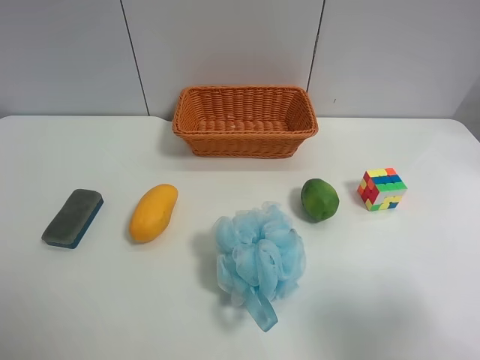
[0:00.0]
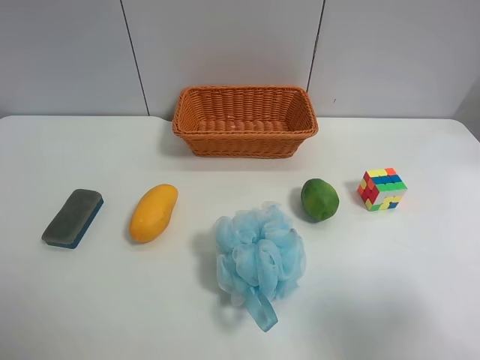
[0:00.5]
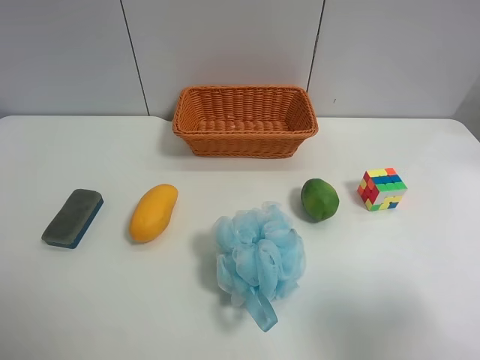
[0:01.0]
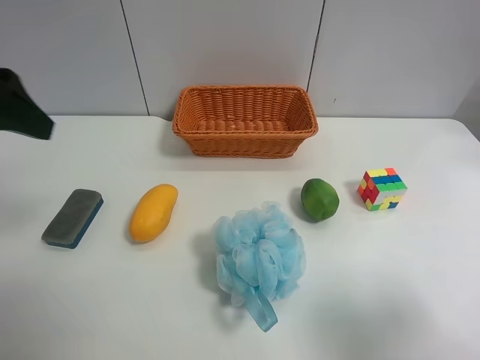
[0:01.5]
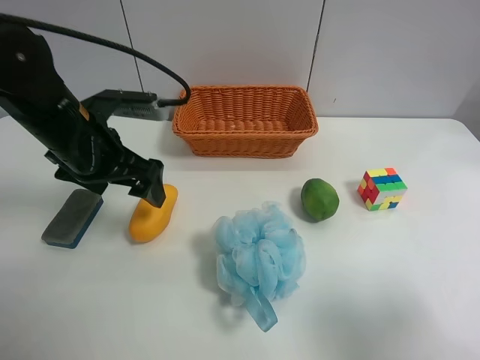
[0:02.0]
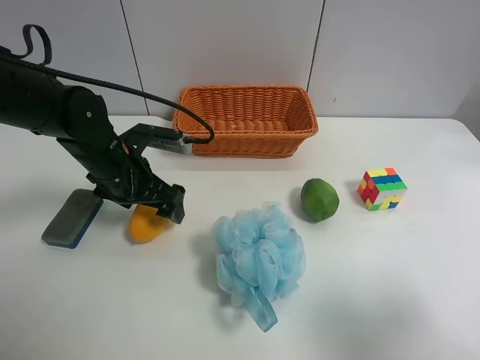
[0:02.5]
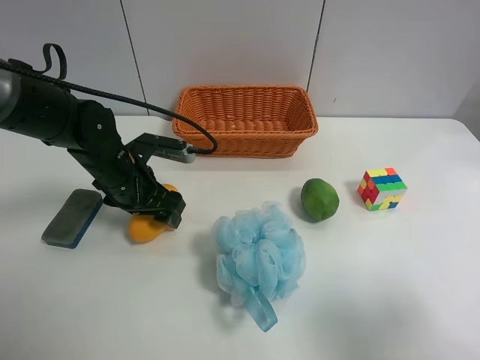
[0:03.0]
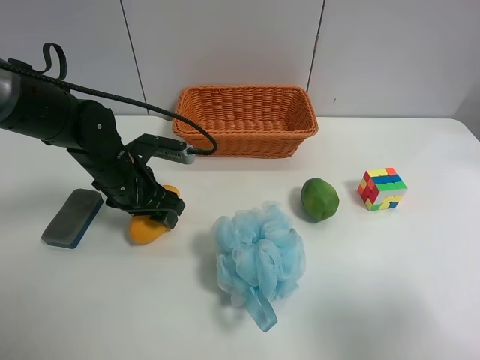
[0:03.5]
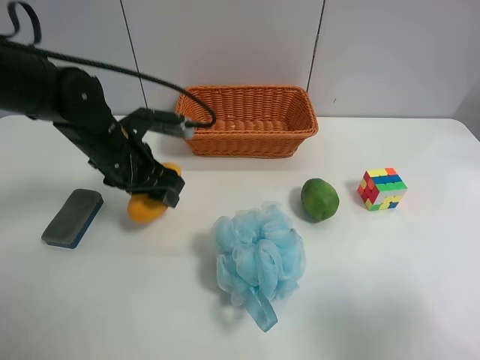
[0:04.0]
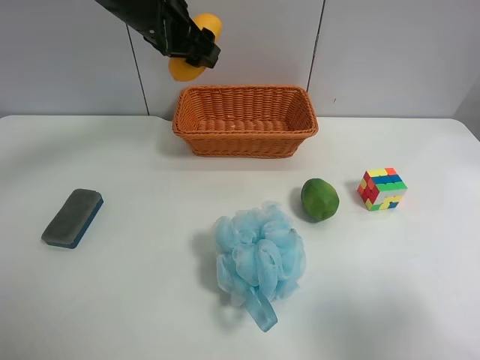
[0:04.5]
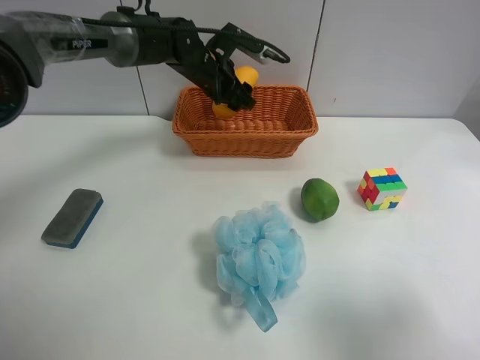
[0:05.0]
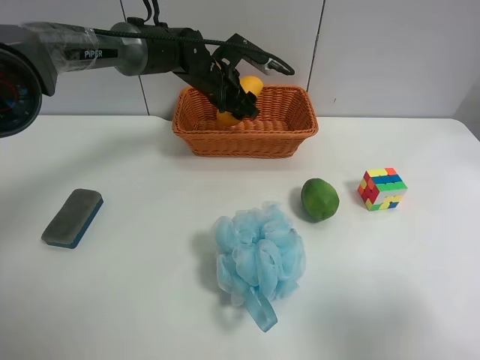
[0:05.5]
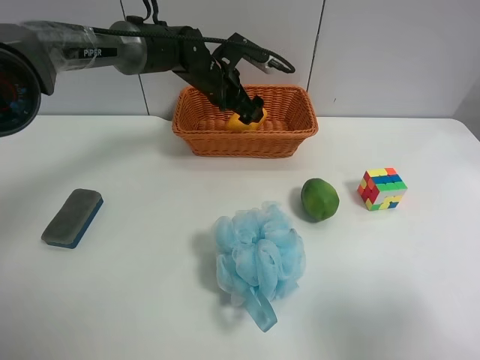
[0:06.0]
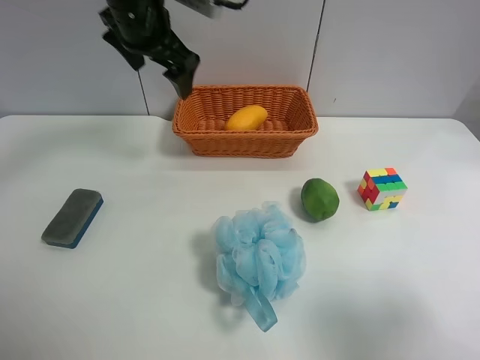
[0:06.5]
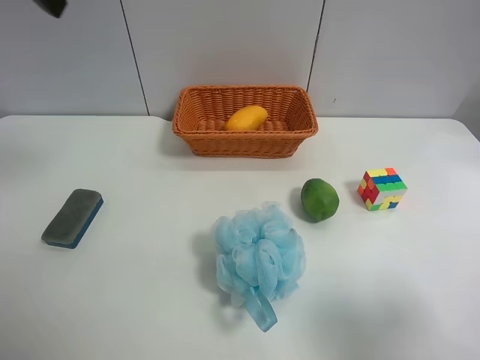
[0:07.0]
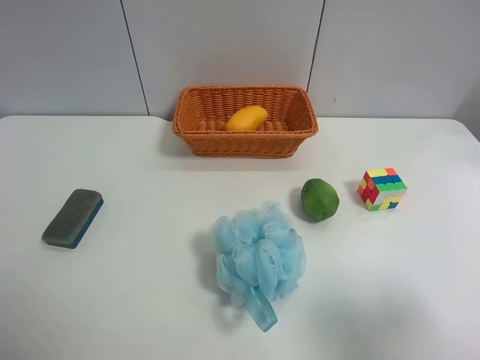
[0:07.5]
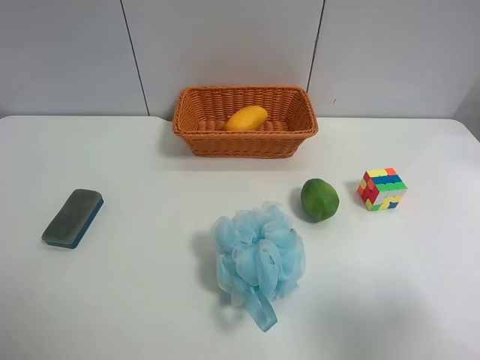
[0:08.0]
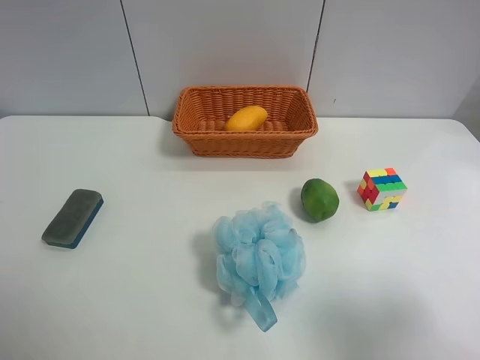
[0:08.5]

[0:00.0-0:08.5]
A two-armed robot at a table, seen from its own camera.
Task of the whole recording: use the left gripper to grab items from the table and place them in the basket.
Step, 0:00.0 to 0:03.0: Grasp the mango with the left gripper.
Step, 0:03.5 to 0:05.5: Place the mango into the basket with the left gripper.
0:00.0 to 0:02.0: The left gripper shifts about 30 cm forward and to the right.
0:02.0 to 0:04.0: The left gripper travels downward by approximately 5 cm, and closes its fingers.
0:04.0 to 0:06.5: The left gripper is displaced upward and forward by roughly 20 cm, and opens its fingers.
0:06.5 to 0:08.5: The left gripper is displaced backward and to the left by roughly 50 cm.

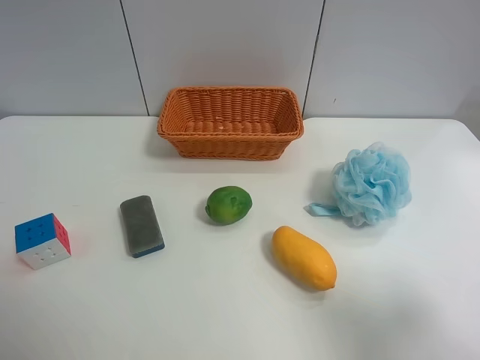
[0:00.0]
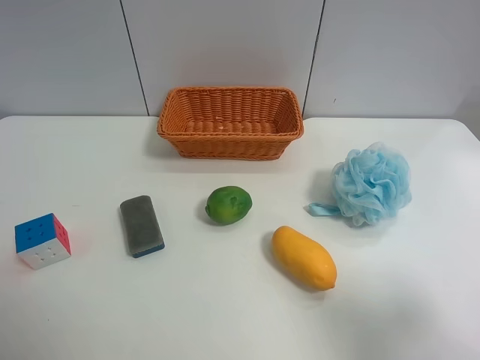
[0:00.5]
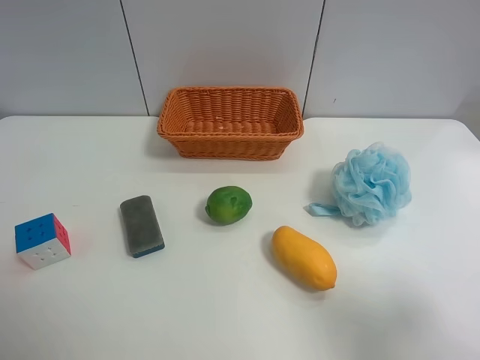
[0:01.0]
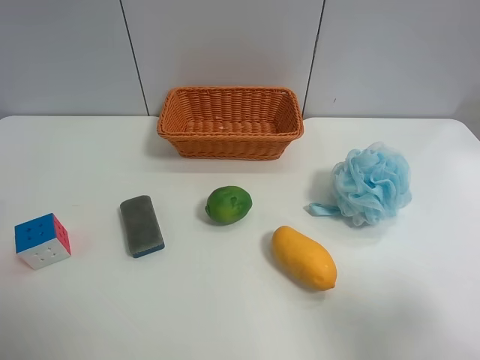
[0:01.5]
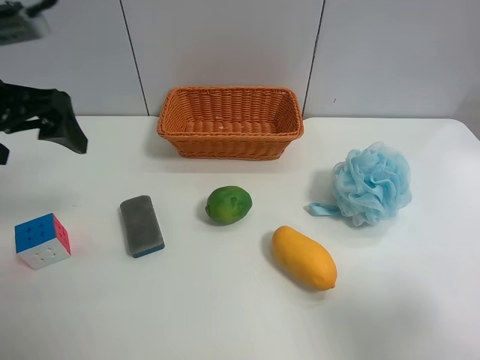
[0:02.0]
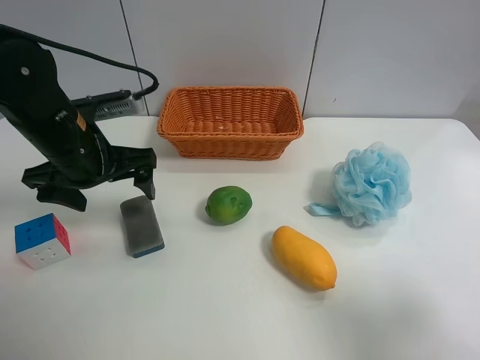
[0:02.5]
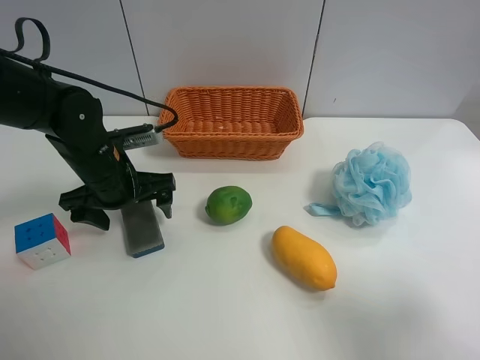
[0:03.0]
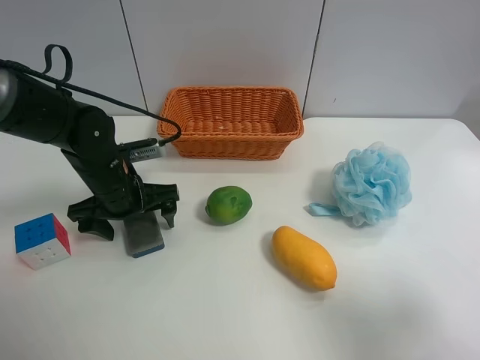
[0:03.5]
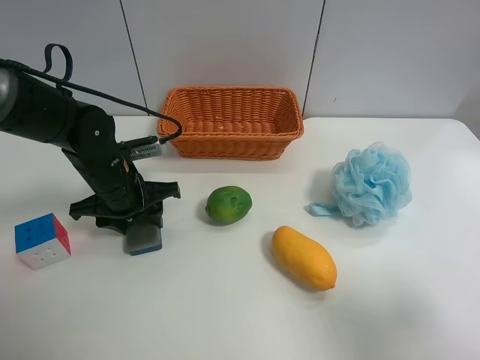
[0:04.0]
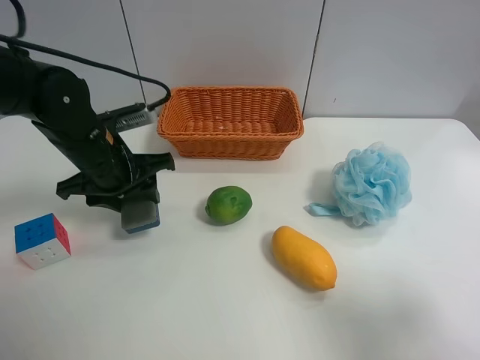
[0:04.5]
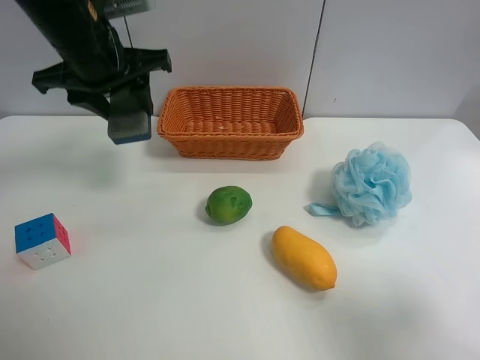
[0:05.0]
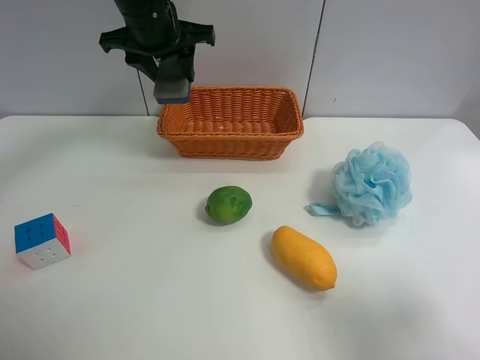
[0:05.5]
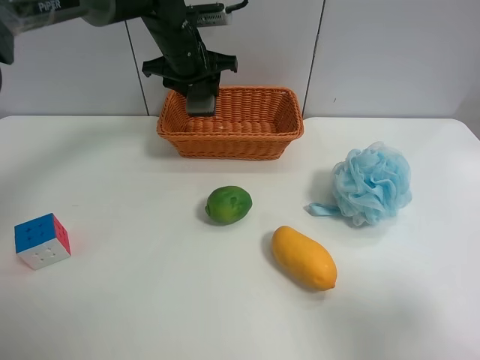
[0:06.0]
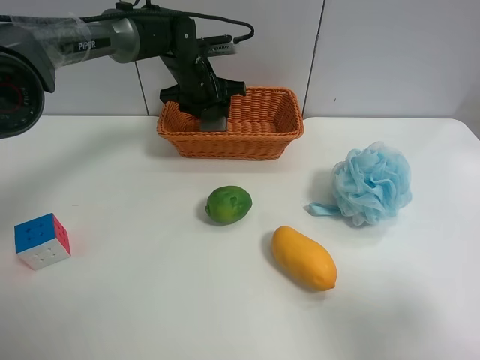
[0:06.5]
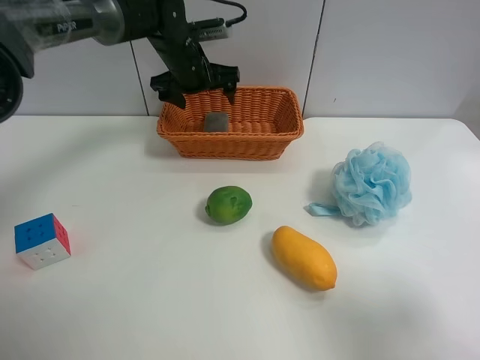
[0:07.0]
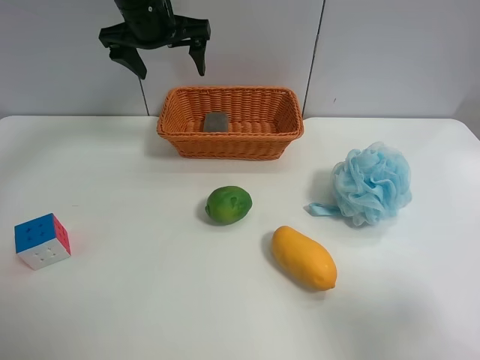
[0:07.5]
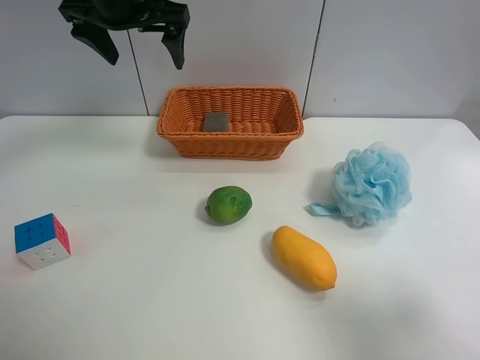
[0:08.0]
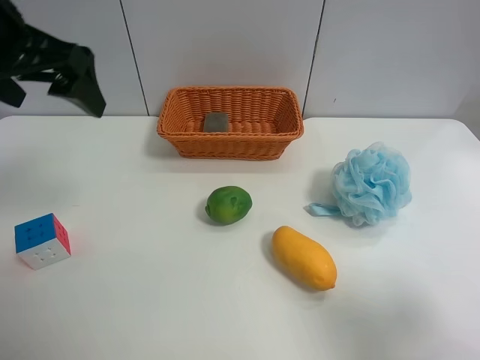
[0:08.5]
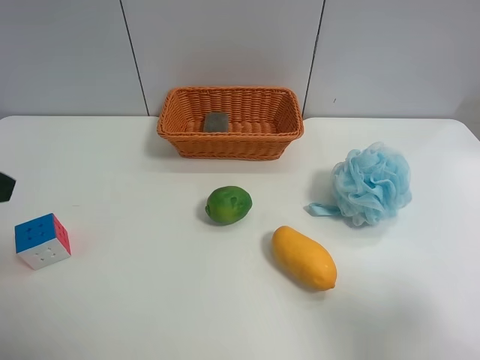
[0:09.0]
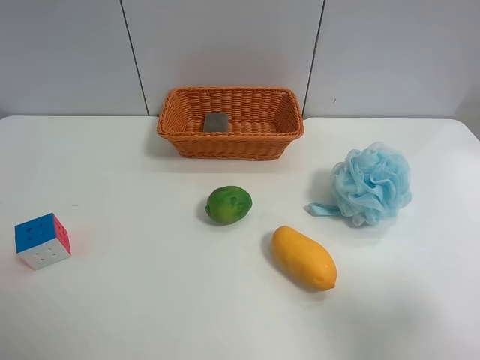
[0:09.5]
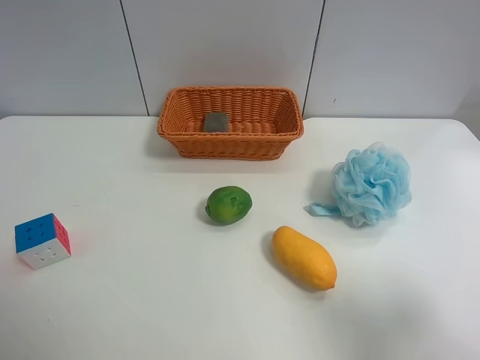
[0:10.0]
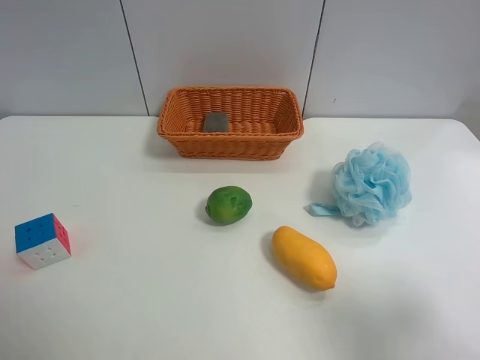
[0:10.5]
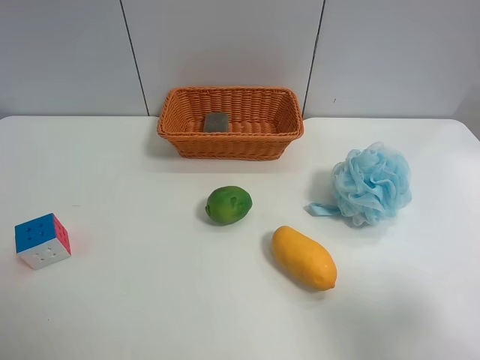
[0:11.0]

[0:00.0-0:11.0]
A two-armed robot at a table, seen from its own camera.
Task of the whole recording: use the left gripper to grab items from the table and place them in the basket.
Step, 0:00.0 to 0:04.0: Grasp the chalkboard eraser with the left gripper.
Step, 0:04.5 to 0:07.0: Place the chalkboard eraser into the basket with the left gripper.
0:00.0 to 0:02.0: The left gripper heads forward, covering approximately 25 cm.
0:02.0 to 0:03.5: The left gripper is displaced downward by roughly 15 cm.
0:03.5 to 0:05.5: The left gripper is displaced upward and forward by about 25 cm, and closes up.
0:05.5 to 0:07.5: The left gripper reaches approximately 10 cm downward, then returns, and opens up.
0:07.5 to 0:09.0: The left gripper heads backward and to the left, covering approximately 35 cm.

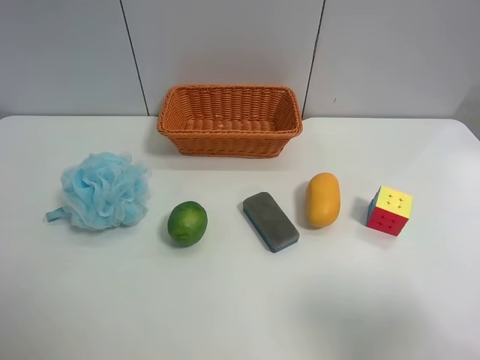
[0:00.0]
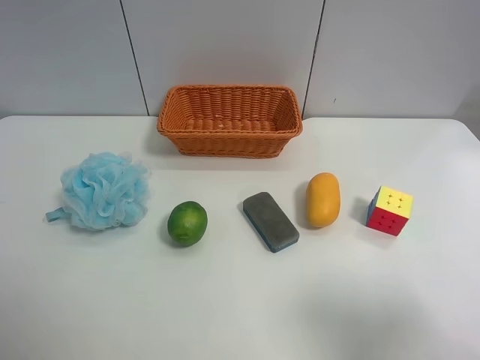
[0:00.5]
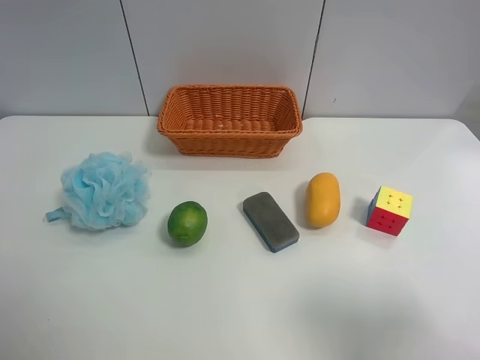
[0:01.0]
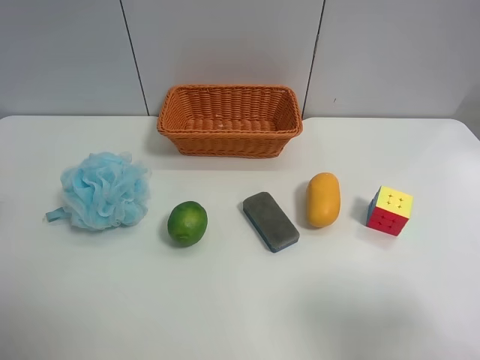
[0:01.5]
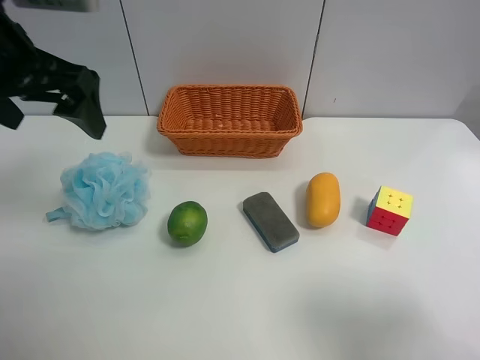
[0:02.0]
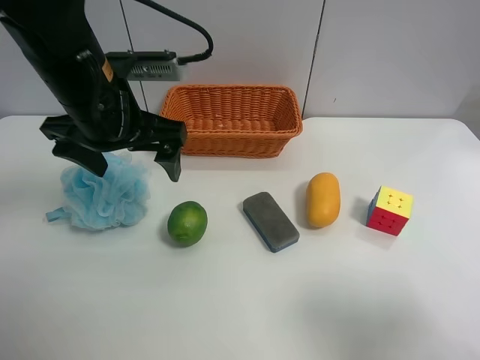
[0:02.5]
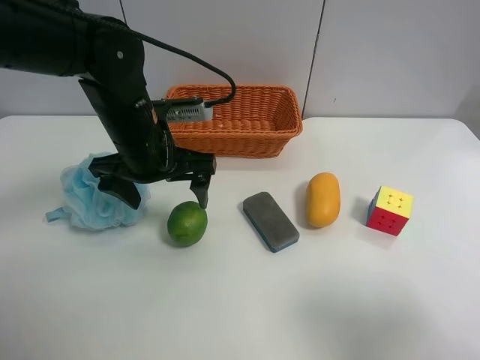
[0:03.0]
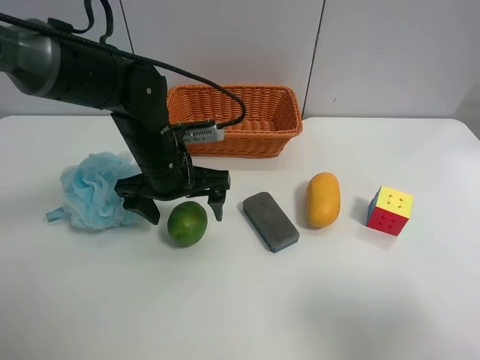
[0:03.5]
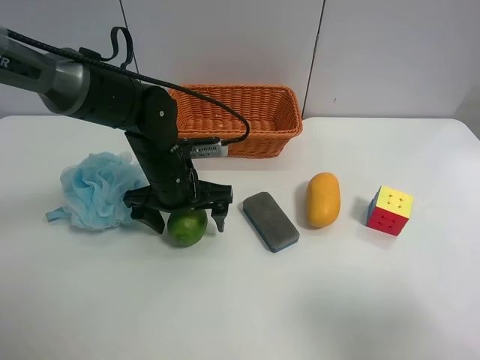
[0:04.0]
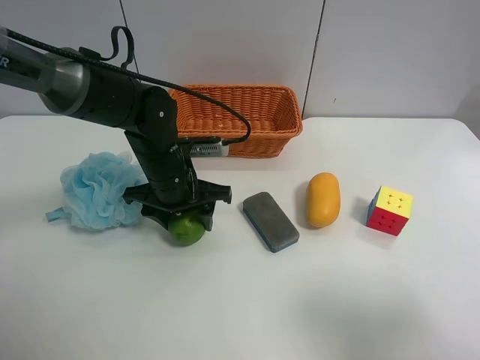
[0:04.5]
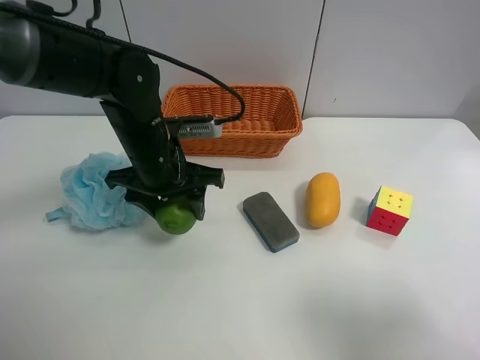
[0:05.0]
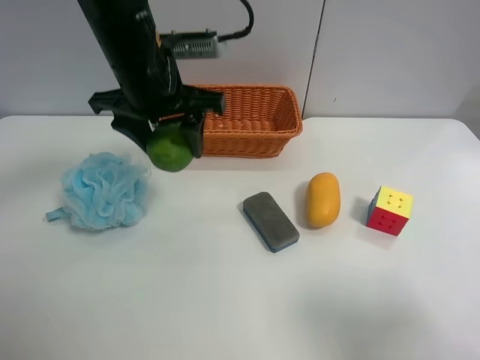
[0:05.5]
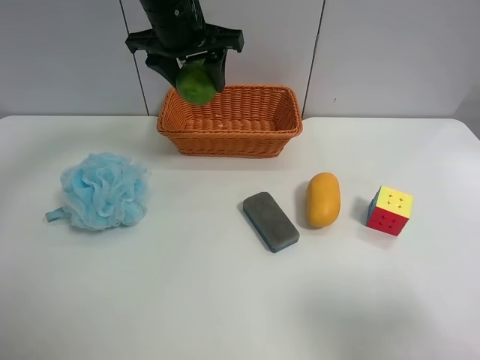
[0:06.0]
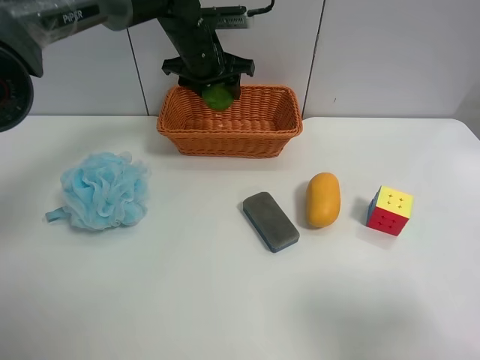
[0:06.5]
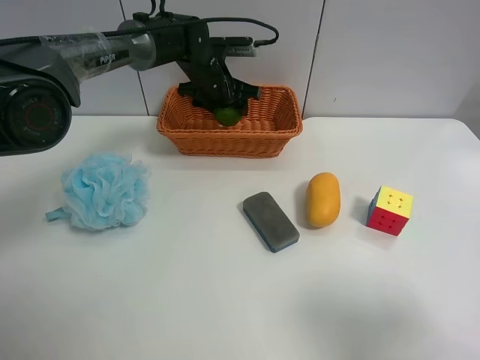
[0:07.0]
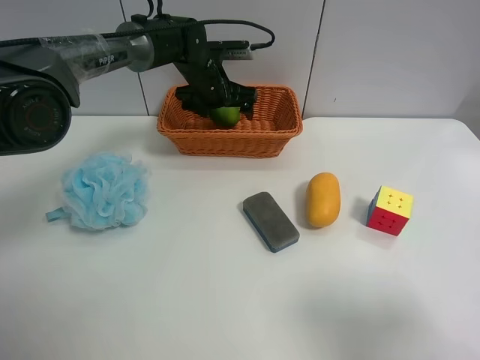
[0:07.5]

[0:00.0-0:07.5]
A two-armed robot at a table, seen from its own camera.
Task of the whole recording: use the left gripper to grab items from the table and place them in the basket.
Step, 0:00.0 to 0:04.0: Grasp the apple rubber puff with the left gripper.
Step, 0:04.5 to 0:07.0: Place the apple rubber puff into the basket with the left gripper.
0:00.0 to 0:02.0: The left gripper travels forward and to the right by about 25 cm.
0:02.0 to 0:04.0: The left gripper shifts approximately 25 cm downward and to the right.
0:04.0 to 0:05.5: The left gripper shifts approximately 15 cm upward, and closes its fingers.
0:05.5 to 0:07.5: The left gripper travels forward and downward by some 20 cm, and opens up.
